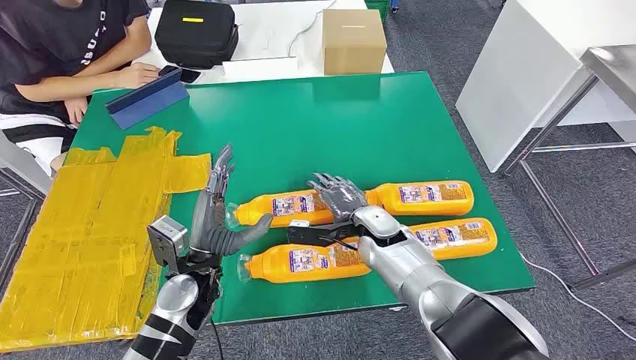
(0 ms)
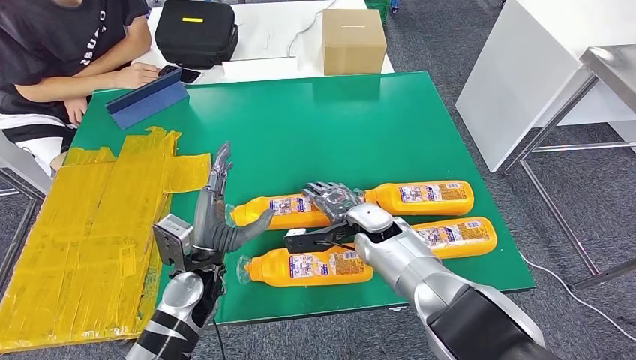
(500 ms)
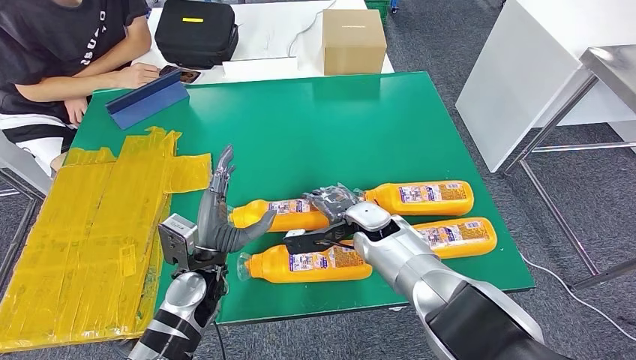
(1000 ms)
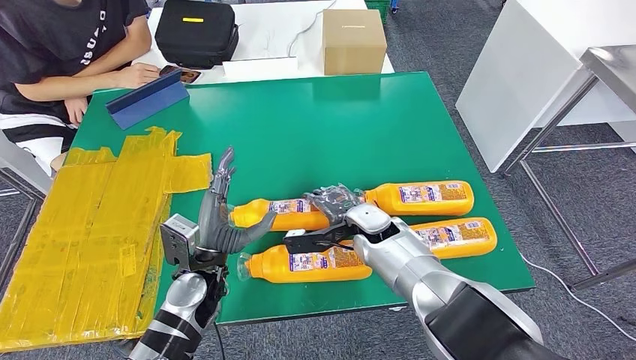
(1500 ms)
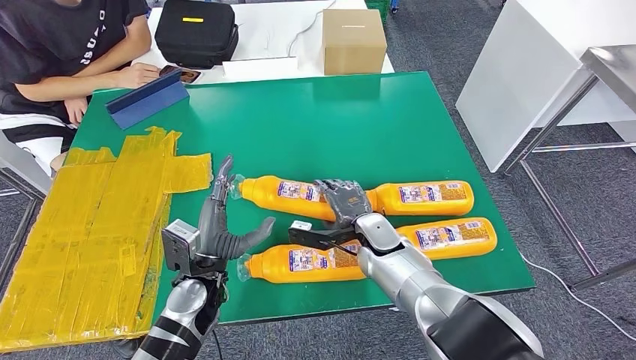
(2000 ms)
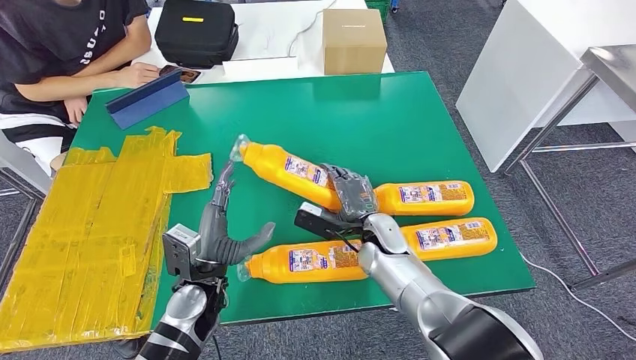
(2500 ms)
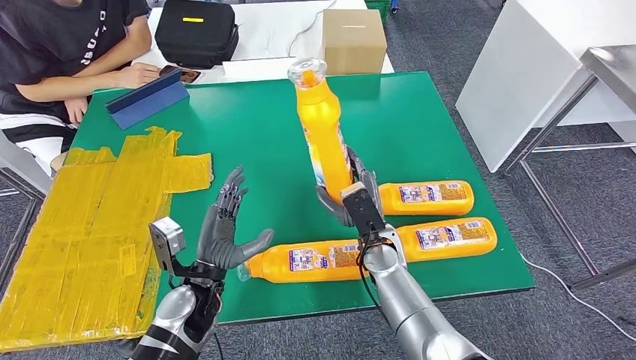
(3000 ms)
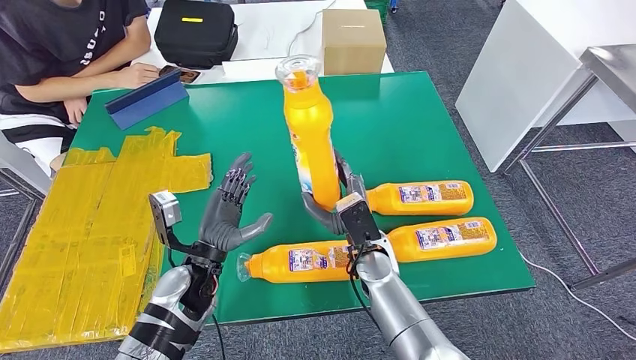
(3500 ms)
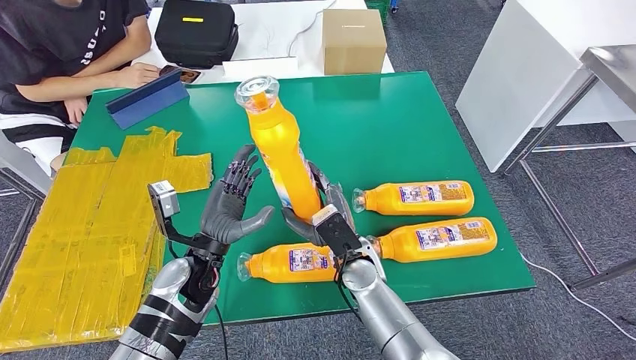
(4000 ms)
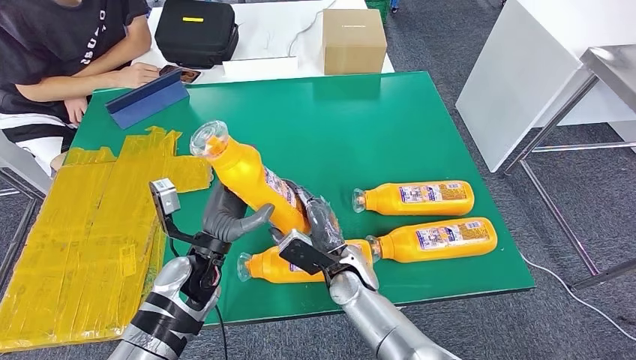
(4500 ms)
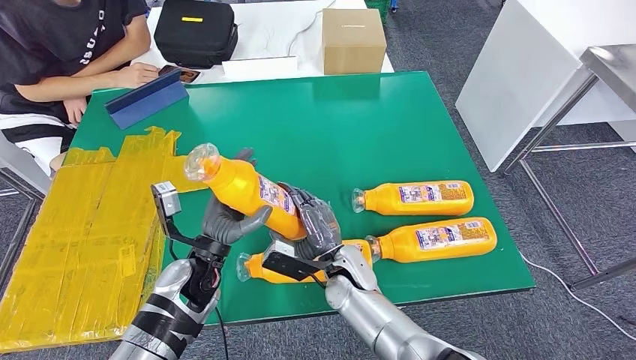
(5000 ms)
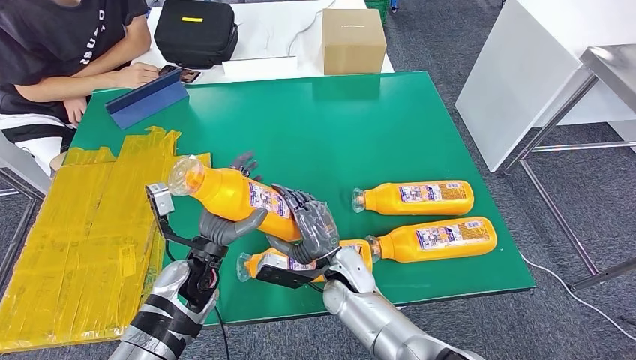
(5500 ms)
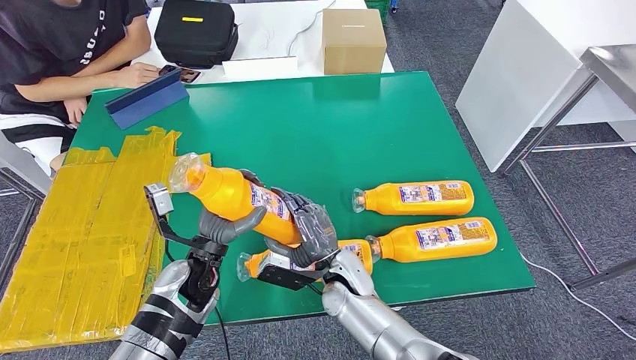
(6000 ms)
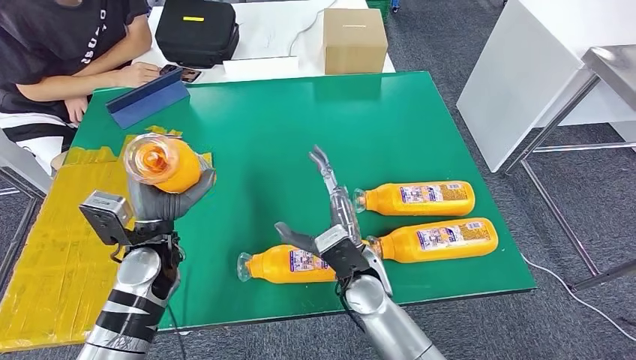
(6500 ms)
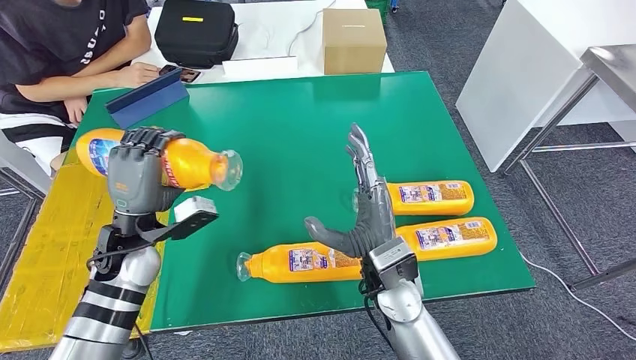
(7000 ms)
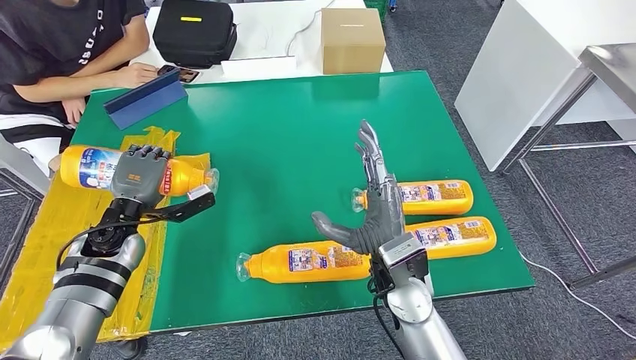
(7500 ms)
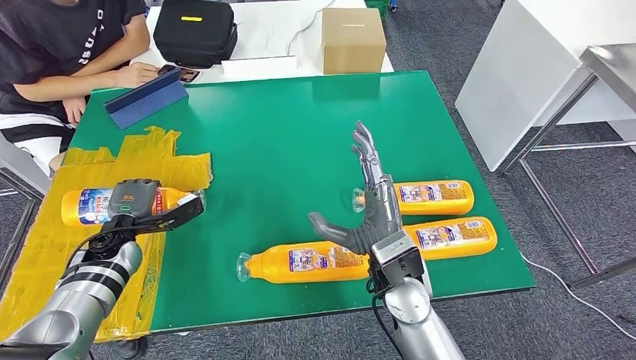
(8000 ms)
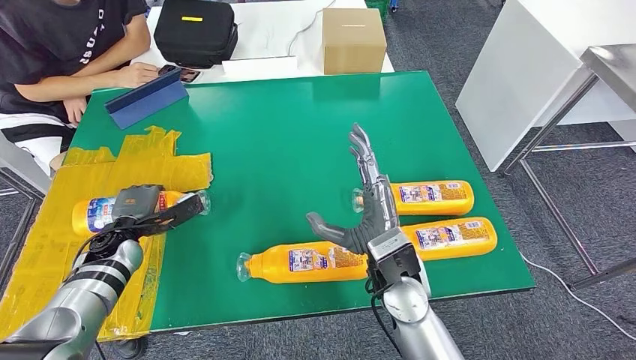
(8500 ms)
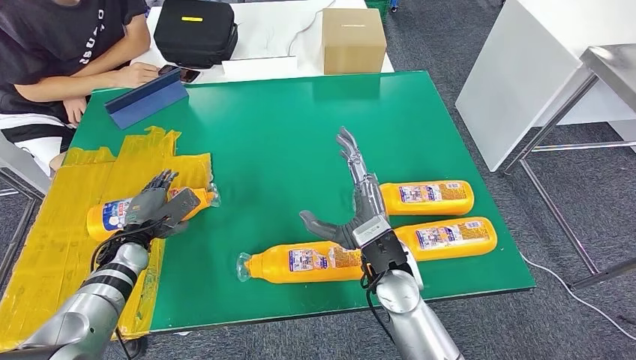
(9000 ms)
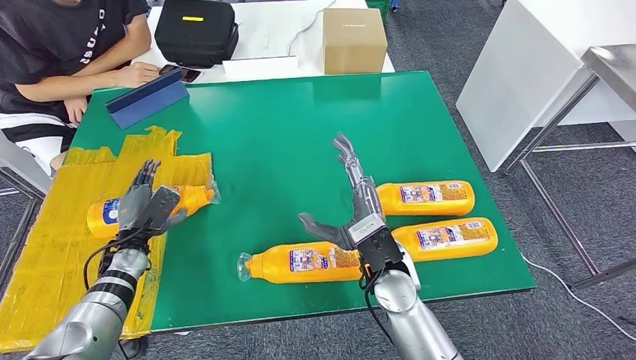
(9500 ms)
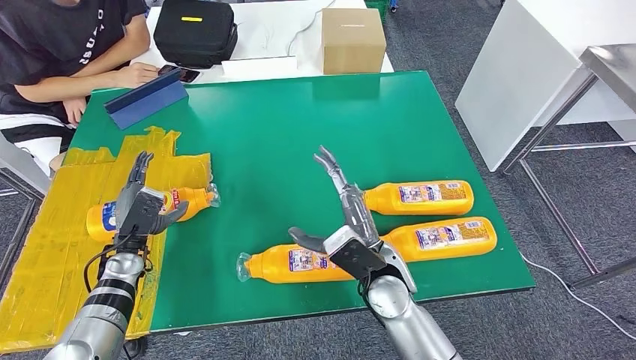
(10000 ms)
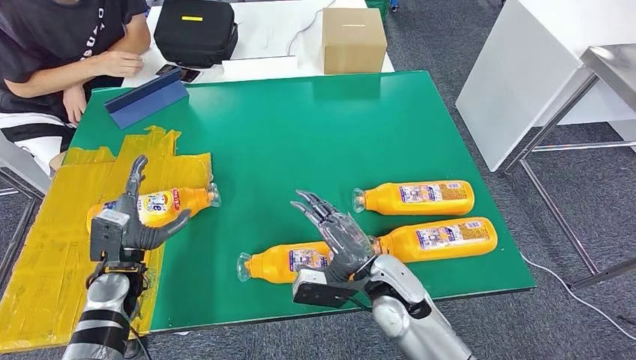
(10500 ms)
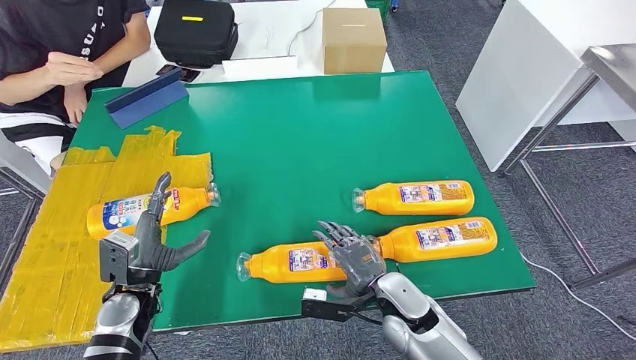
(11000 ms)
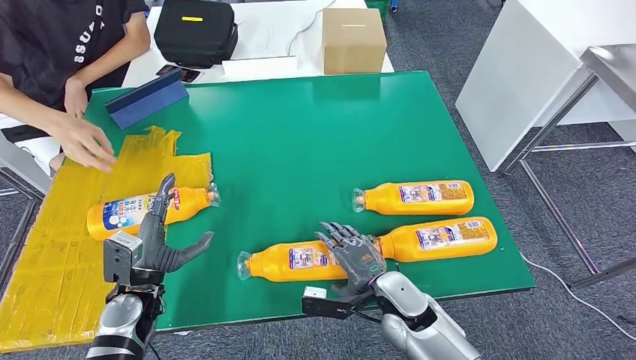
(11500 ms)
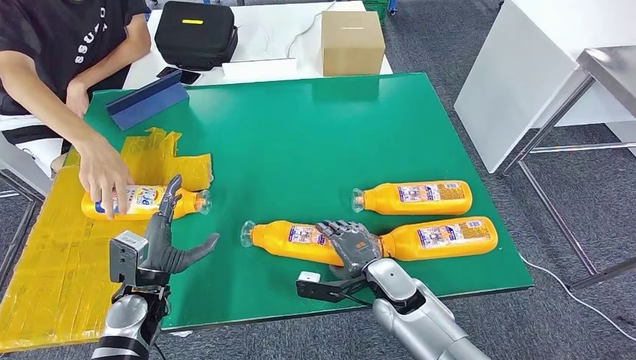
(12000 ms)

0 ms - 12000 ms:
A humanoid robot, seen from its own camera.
Step, 0 ms - 4500 ms: Take the bottle from the table.
Step, 5000 ms - 10500 ms: Flip the bottle to face forward.
2000 ms - 4000 ms: The right hand shifts roughly 5 cm backward.
6000 ms - 8000 ms: The right hand moves upward and to the right, approximately 15 cm. Meanwhile the left hand is displaced to the left by about 20 cm.

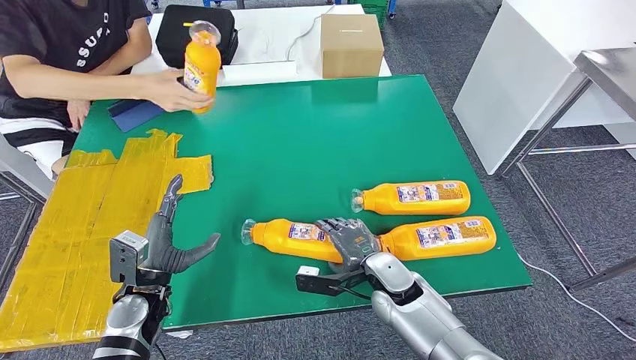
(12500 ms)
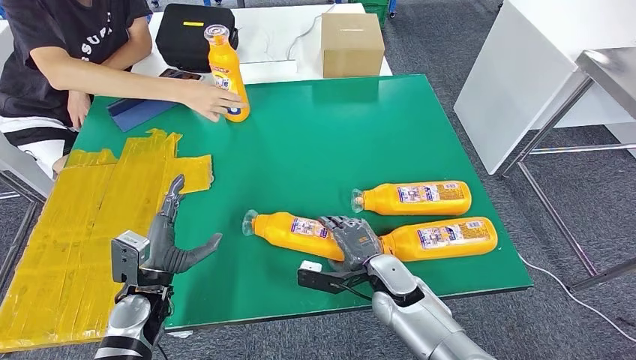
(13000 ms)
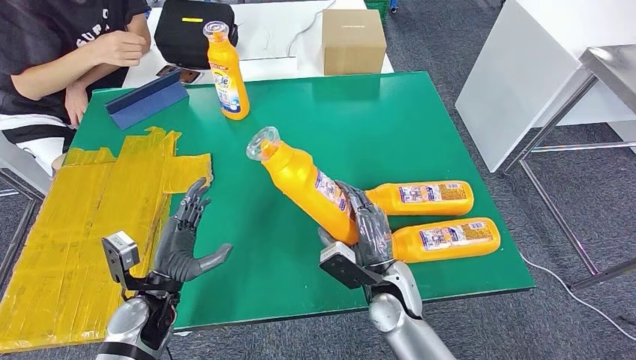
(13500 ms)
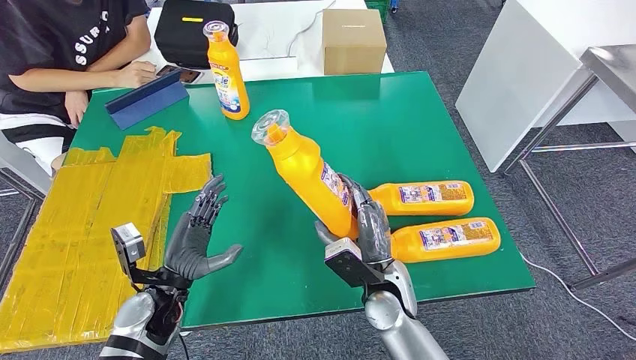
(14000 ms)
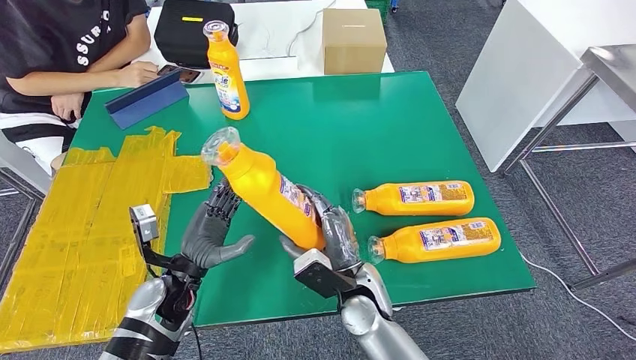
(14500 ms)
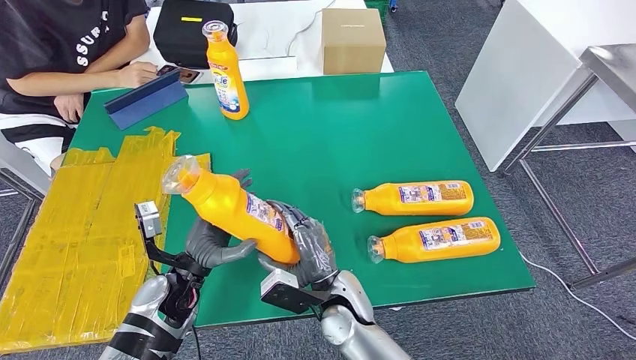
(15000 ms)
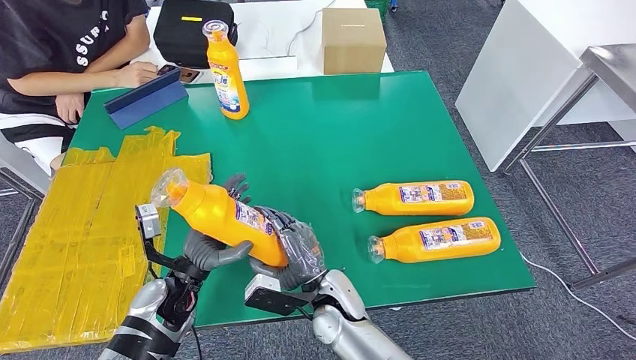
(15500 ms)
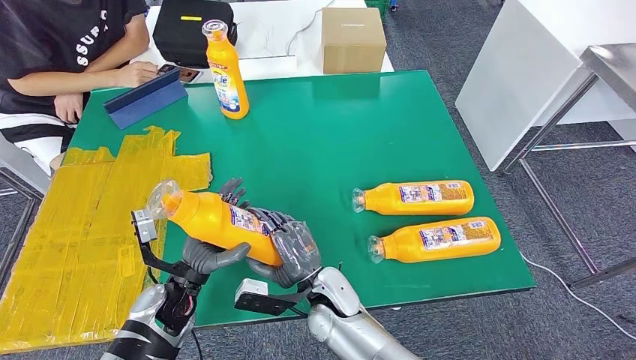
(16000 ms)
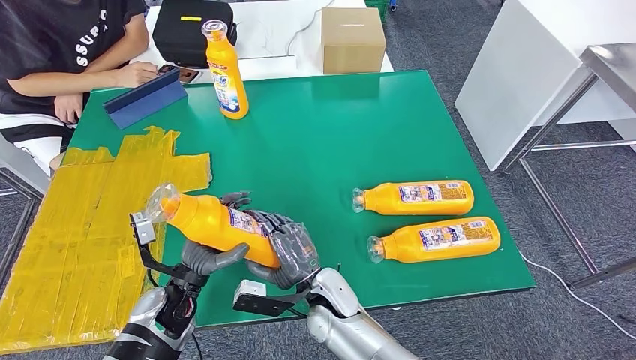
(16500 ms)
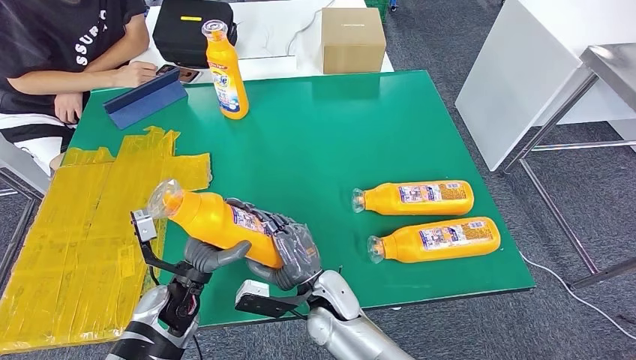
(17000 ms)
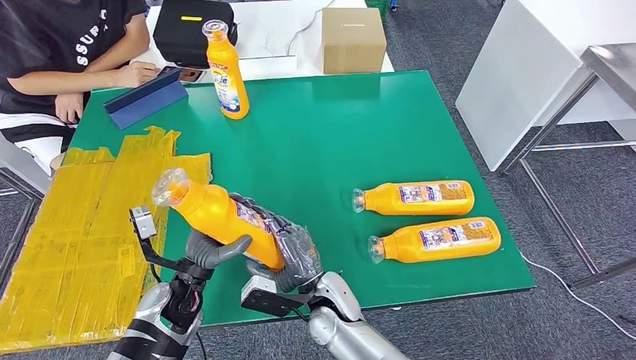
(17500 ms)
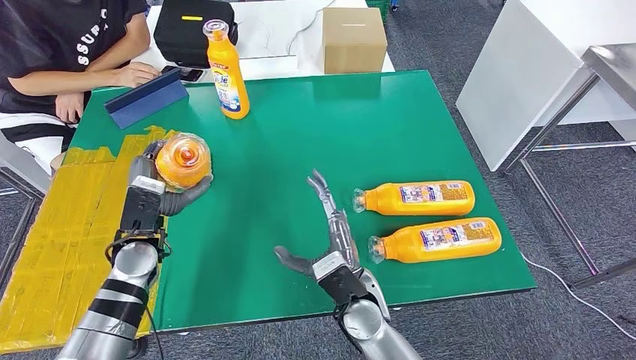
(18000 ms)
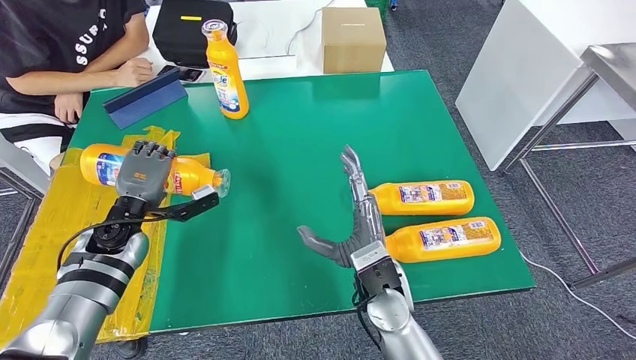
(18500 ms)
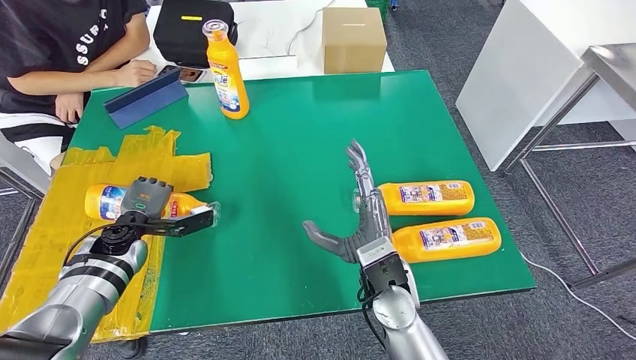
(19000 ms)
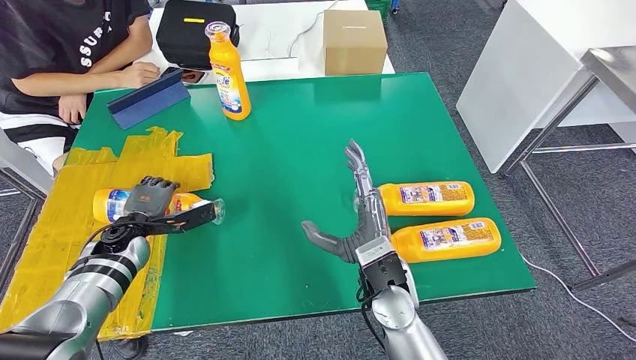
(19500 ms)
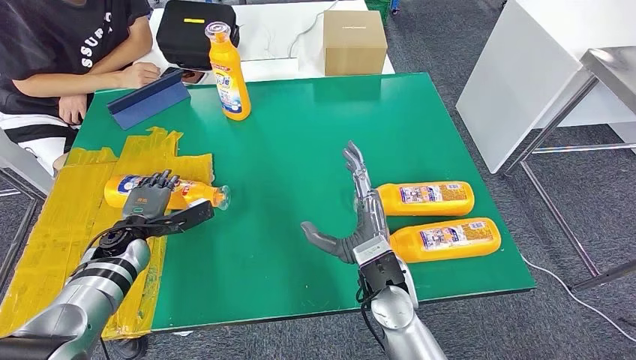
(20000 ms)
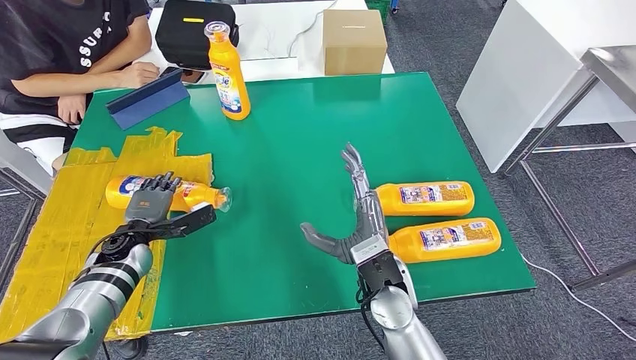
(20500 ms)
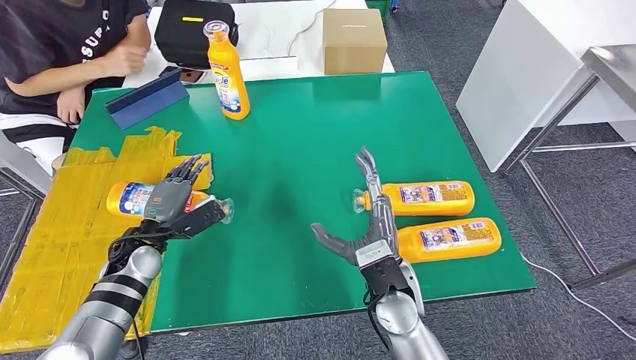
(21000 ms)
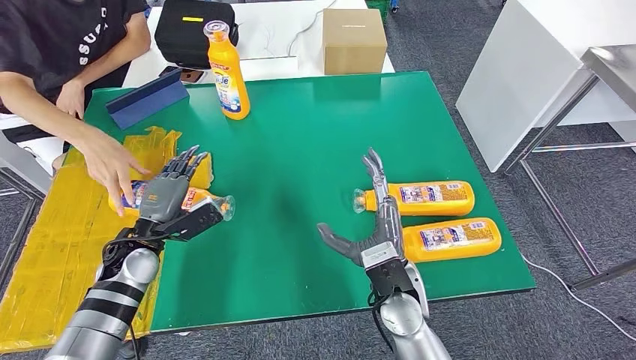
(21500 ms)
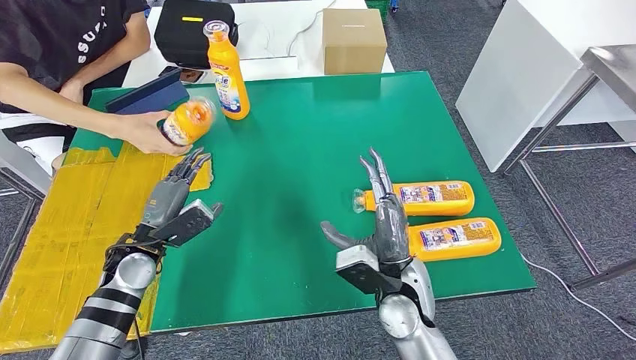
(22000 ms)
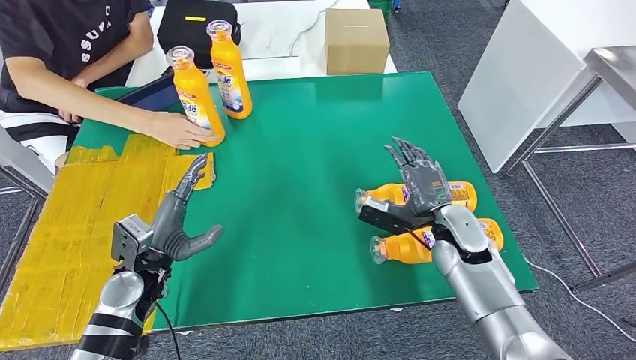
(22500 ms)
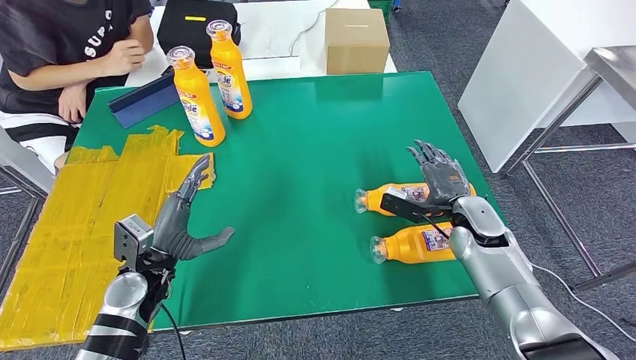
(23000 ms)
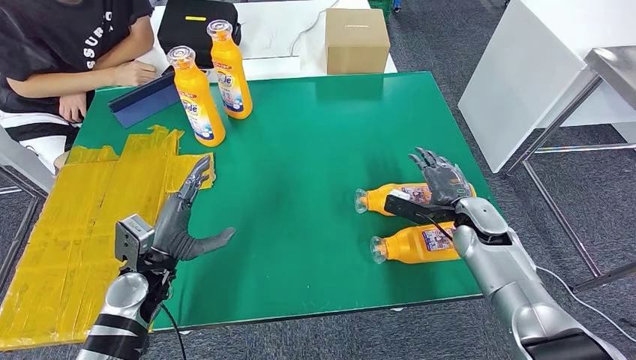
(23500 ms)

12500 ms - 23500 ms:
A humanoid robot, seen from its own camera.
Step, 12500 ms - 16500 ms: Pick up the bottle from the table.
Step, 17000 ms - 22500 ms: Flip the bottle to face forward.
14500 ms - 16000 ms: The right hand heads to the left, covering some 5 cm.
16000 ms - 18000 ms: The left hand heads forward, upward and to the left, covering roughly 10 cm, while the right hand shifts by about 5 cm.
18000 ms - 20000 ms: The left hand heads to the left and downward, covering approximately 10 cm. The right hand ends up some 5 cm from where it was.
20000 ms - 21500 ms: The left hand ends up about 5 cm from where it was.
